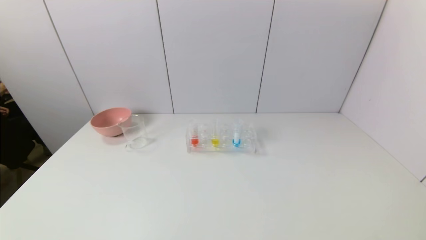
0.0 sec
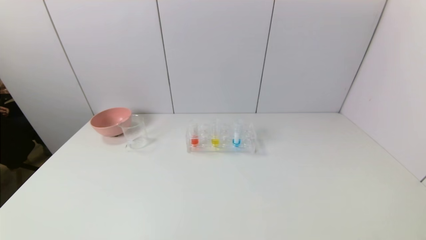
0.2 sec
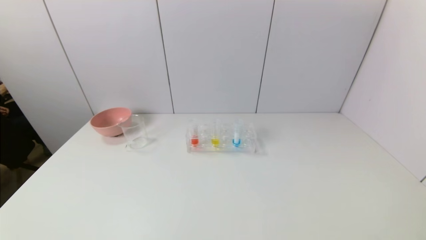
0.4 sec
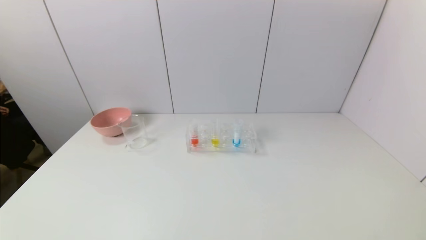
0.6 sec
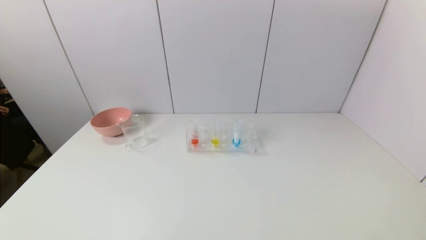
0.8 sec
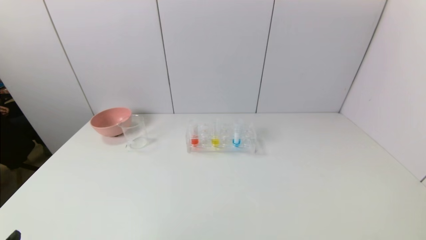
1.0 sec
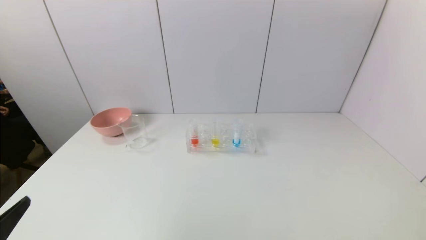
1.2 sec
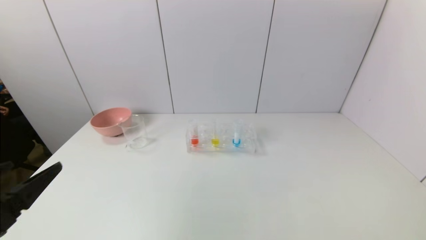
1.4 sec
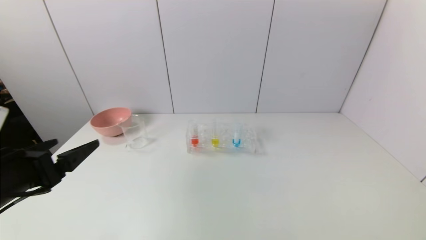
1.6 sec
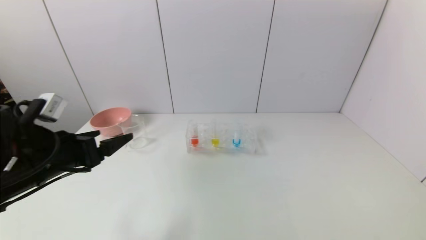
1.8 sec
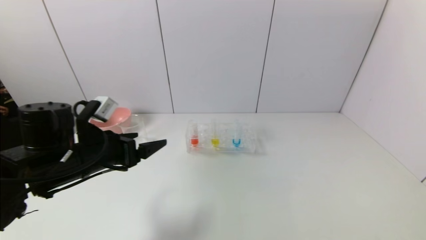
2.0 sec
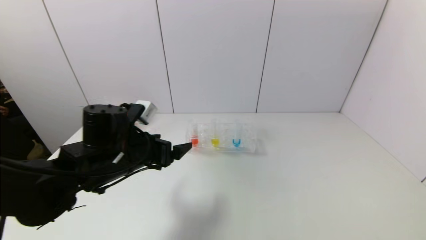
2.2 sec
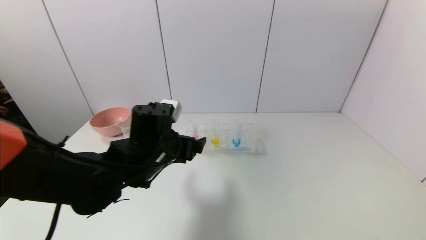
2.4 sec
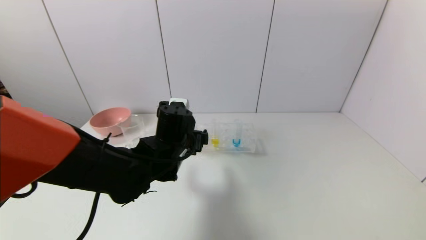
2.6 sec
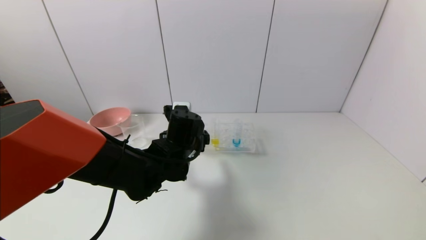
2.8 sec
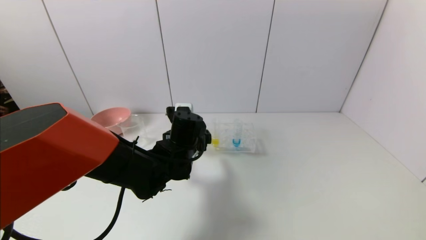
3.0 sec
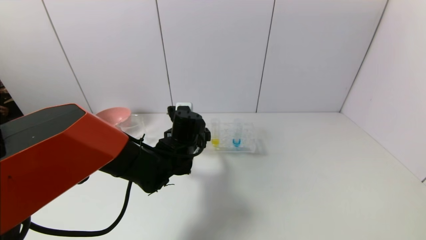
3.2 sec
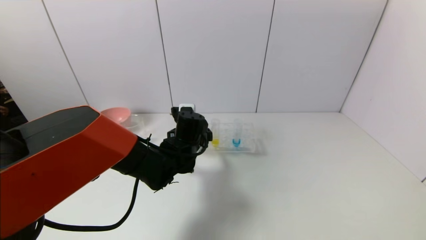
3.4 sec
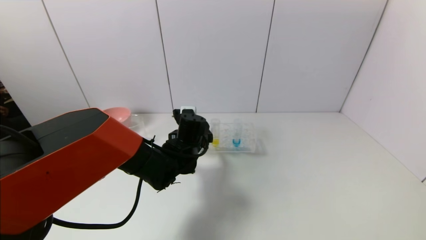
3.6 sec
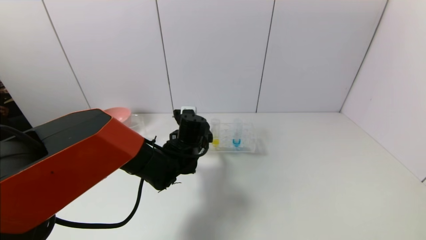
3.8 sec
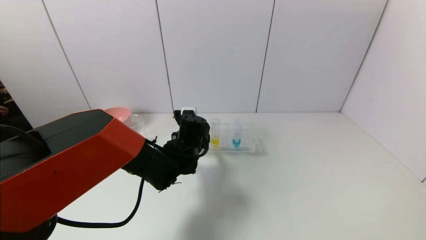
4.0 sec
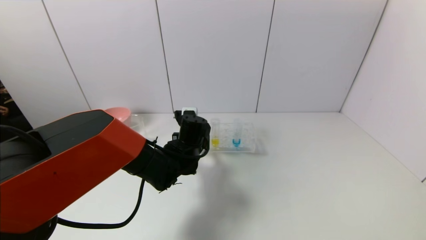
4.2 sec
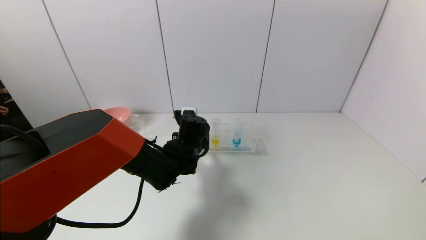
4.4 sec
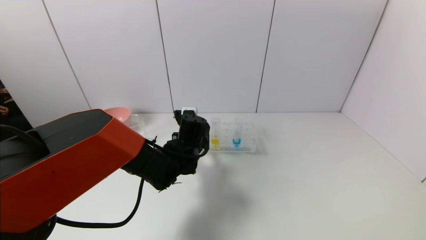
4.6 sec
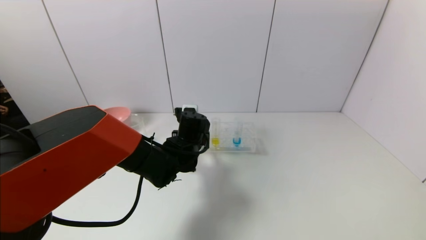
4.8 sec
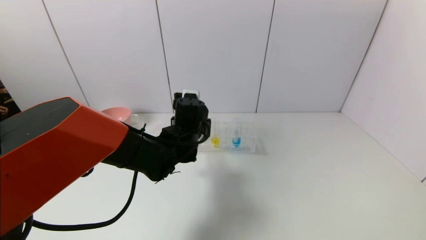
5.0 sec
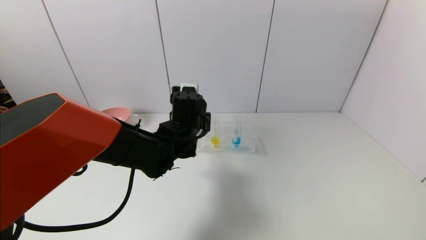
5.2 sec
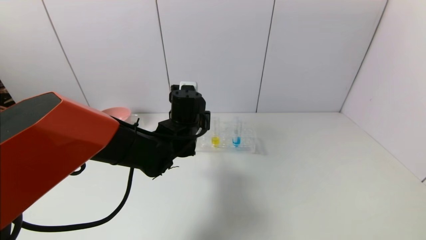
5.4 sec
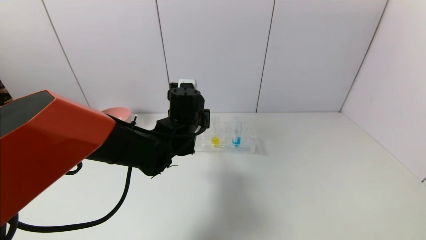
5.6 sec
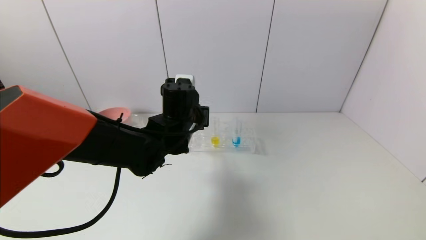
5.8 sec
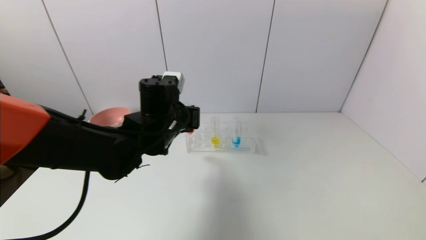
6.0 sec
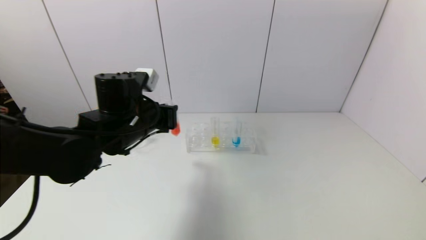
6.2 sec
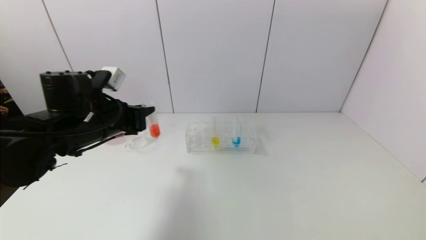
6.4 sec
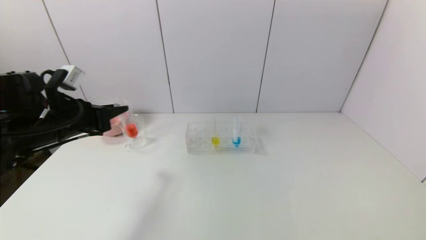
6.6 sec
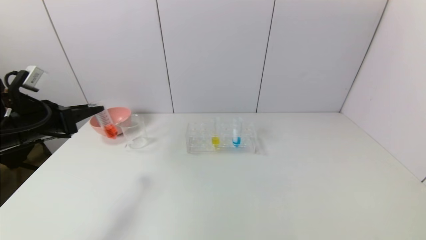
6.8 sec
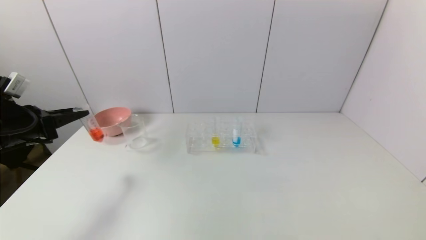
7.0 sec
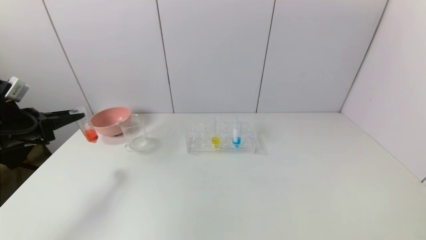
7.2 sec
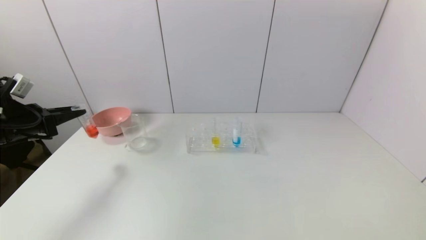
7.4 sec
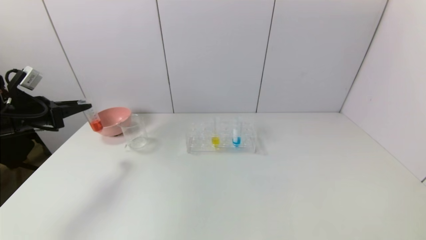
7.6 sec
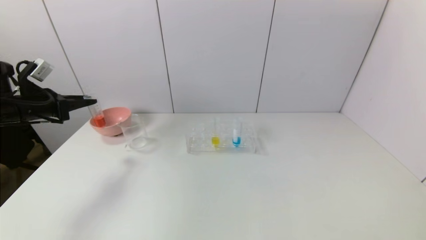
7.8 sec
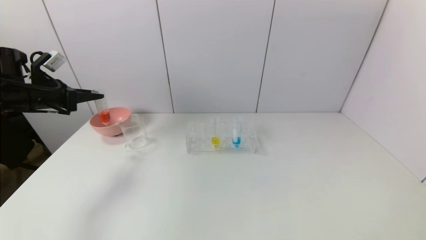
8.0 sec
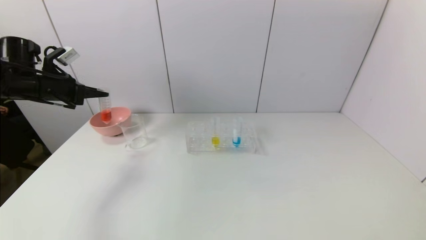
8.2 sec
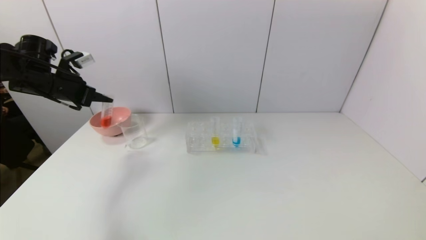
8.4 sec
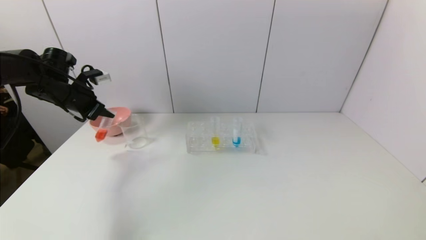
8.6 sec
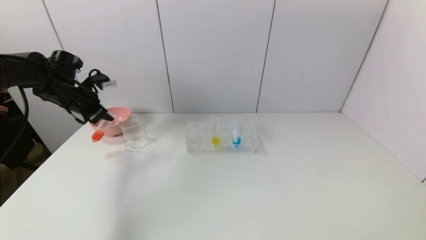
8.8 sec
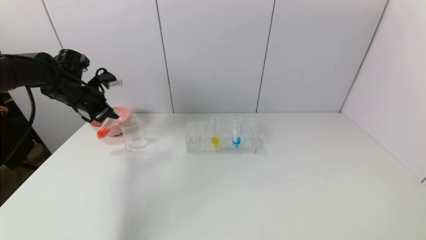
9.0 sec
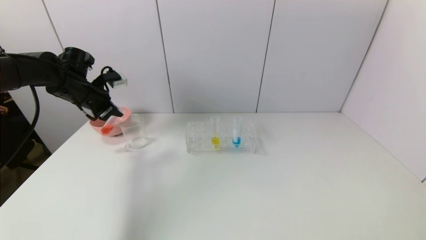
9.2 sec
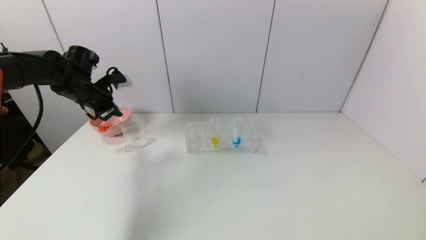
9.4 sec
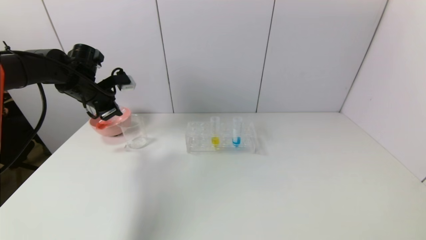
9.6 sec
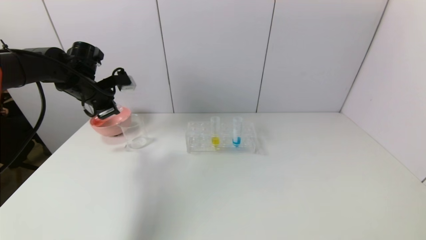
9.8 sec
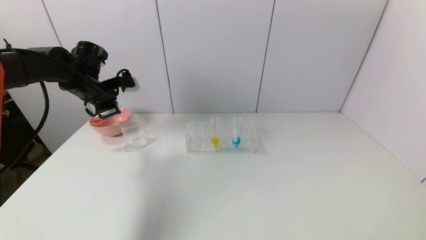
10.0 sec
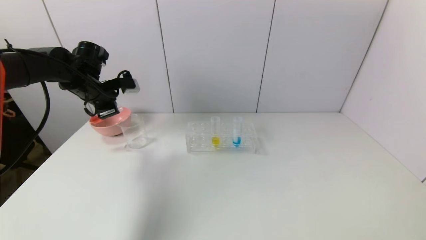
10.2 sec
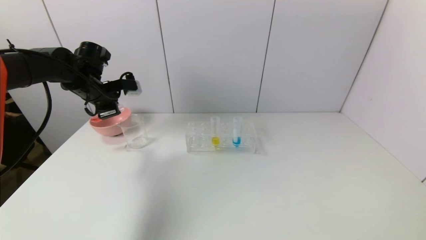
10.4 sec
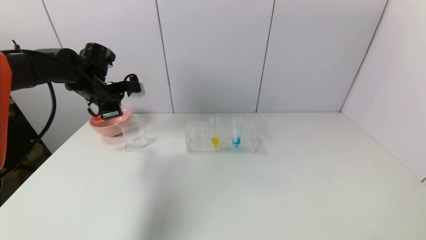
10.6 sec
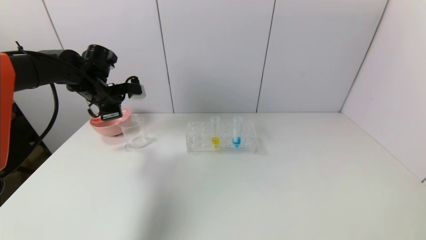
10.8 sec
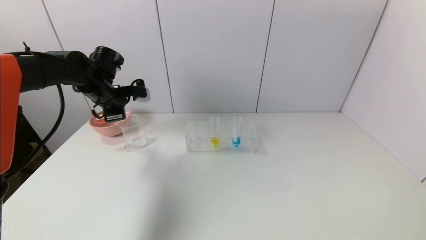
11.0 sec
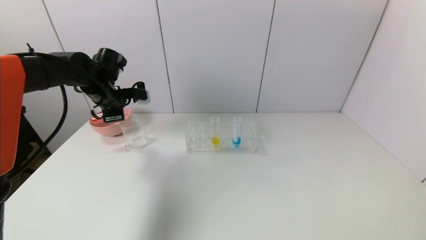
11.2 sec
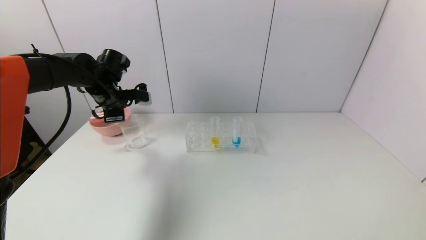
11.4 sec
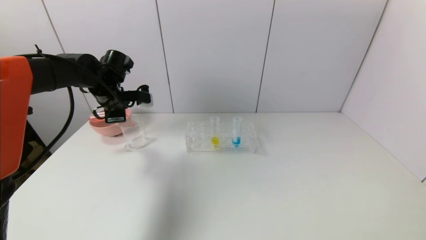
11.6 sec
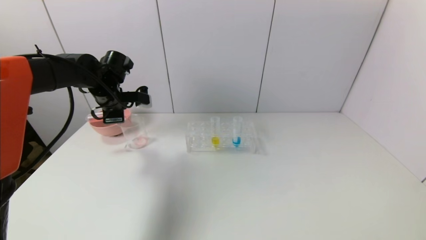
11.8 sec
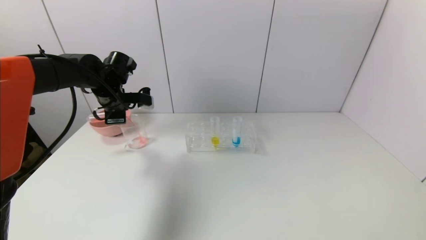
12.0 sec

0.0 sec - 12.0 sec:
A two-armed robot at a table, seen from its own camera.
Task of the whole recording: pick up the test tube with red pigment and the test tube with blue pigment by grippers and pour them into the container.
Step, 0.0 sec - 4.8 sec: Grasp the red reagent with the left gripper.
0.0 sec - 1.6 sec: The left gripper shifts roughly 20 cm forward and upward.
1.6 sec - 3.0 sec: The left gripper is displaced to the right and forward by roughly 25 cm.
3.0 sec - 4.4 sec: The left gripper closes.
4.4 sec - 6.0 sec: The left gripper goes approximately 10 cm upward.
6.0 sec - 7.6 sec: The left gripper heads to the left, covering about 30 cm.
7.6 sec - 9.0 sec: The left gripper shifts about 15 cm forward and to the right.
9.0 sec - 10.4 sec: The left gripper ends up approximately 5 cm from where it was.
10.4 sec - 12.0 sec: The grippers move only a little.

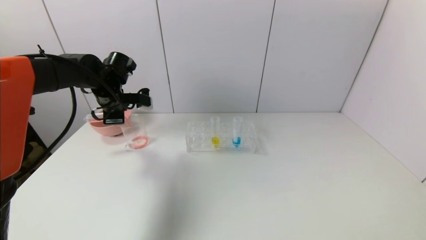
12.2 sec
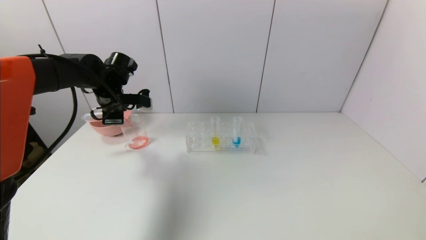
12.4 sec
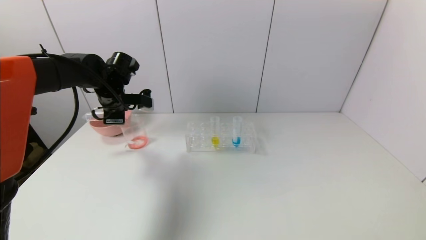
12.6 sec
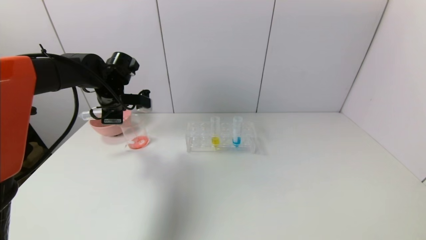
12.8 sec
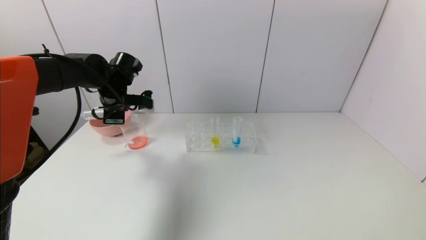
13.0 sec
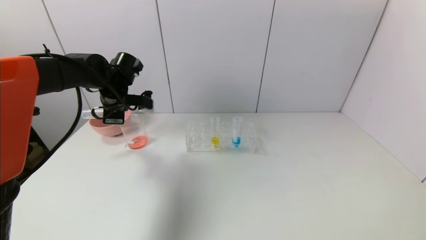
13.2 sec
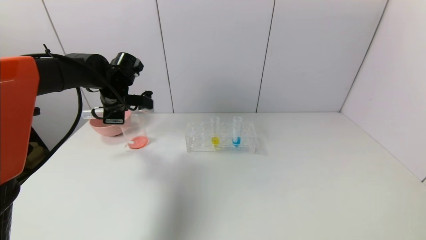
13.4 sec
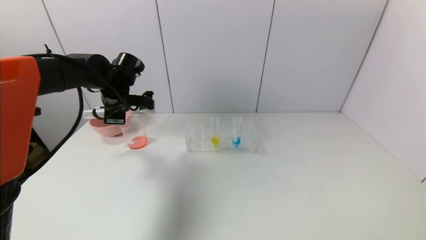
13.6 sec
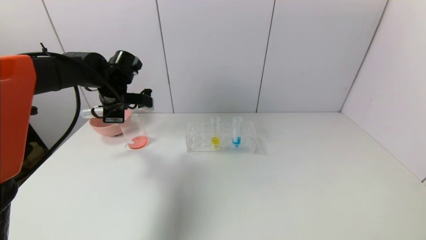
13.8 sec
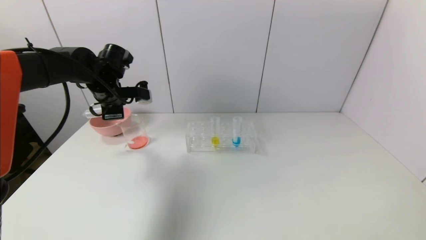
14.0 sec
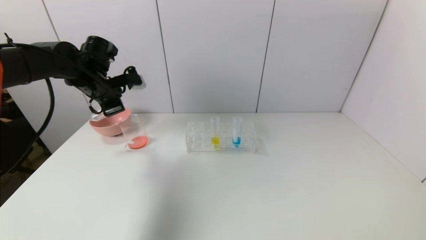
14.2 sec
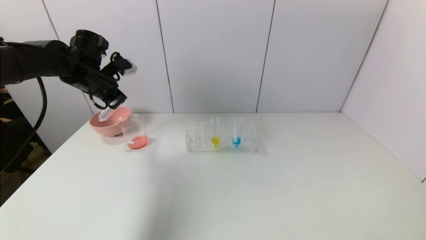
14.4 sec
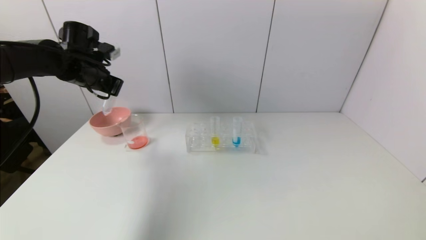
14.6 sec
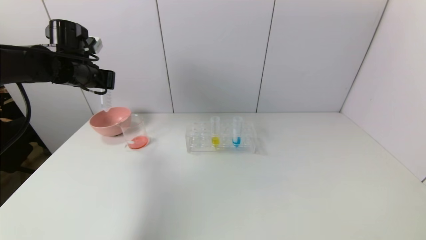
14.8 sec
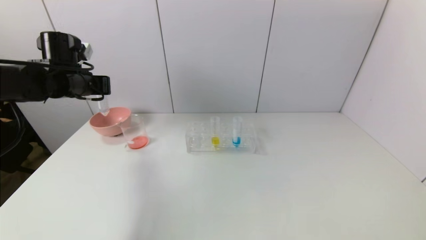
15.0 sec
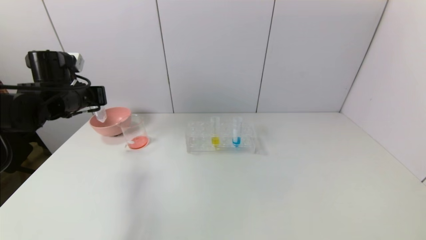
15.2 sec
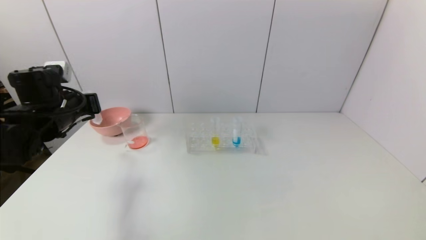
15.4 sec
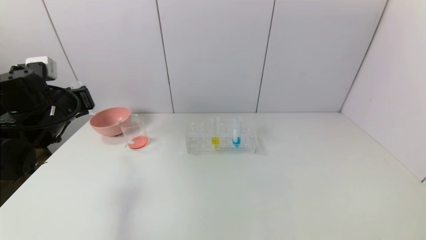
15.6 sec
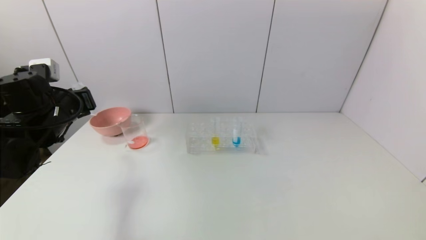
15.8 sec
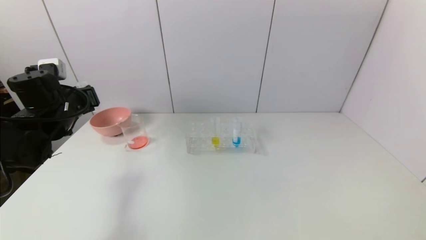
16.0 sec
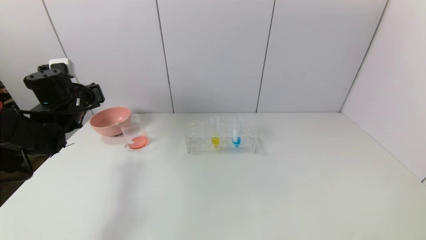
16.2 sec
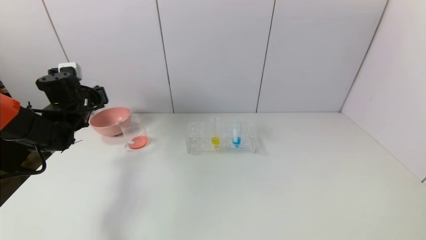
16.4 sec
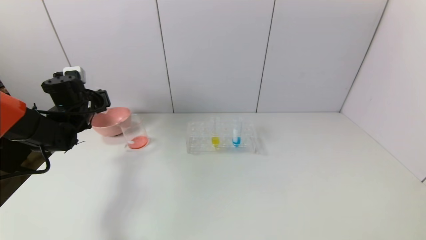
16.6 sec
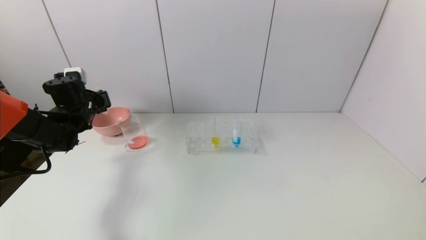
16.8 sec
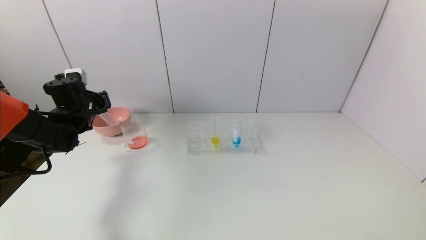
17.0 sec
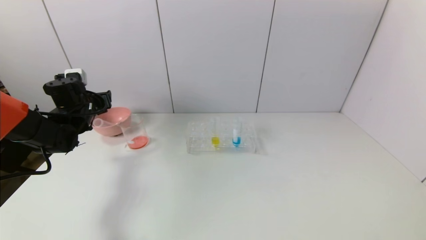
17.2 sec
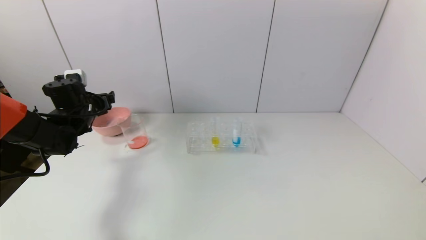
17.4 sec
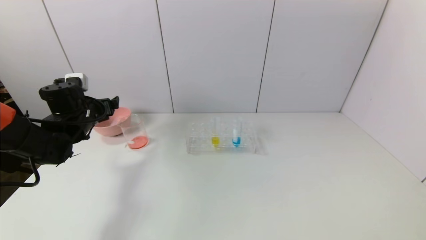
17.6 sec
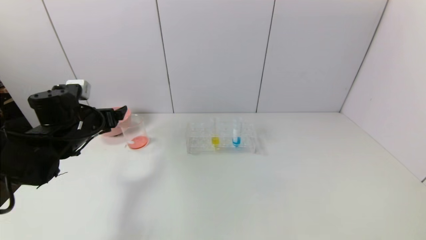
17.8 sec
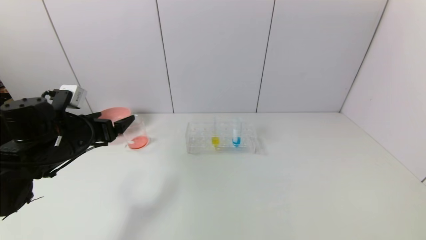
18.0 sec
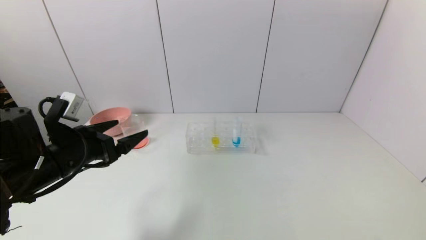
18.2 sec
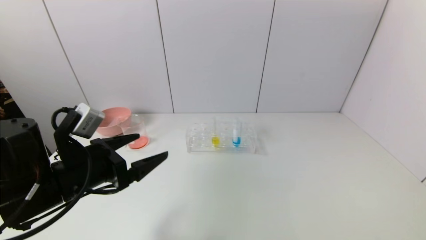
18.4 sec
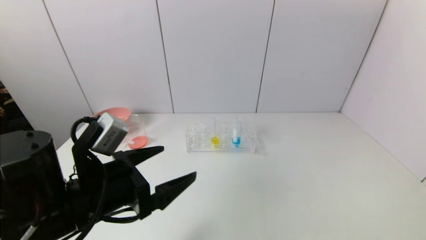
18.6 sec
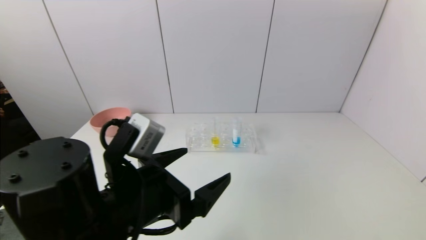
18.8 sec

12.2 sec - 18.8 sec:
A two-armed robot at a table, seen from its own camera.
Task of the whole recording: pick up the test tube with red pigment and the test tube with blue pigment by grippers and pour them into the container.
Step, 14.2 sec - 17.0 sec: Place the test tube into the bowl with the left gripper.
12.2 sec - 13.8 sec: The grippers stay close to where they were, moving slightly.
13.8 sec - 15.4 sec: The left gripper travels backward and to the left by about 10 cm.
15.4 sec - 17.2 sec: The left gripper travels forward by some 10 cm, and opens its fingers.
17.2 sec - 18.8 sec: The left gripper heads backward and to the right, covering about 35 cm.
